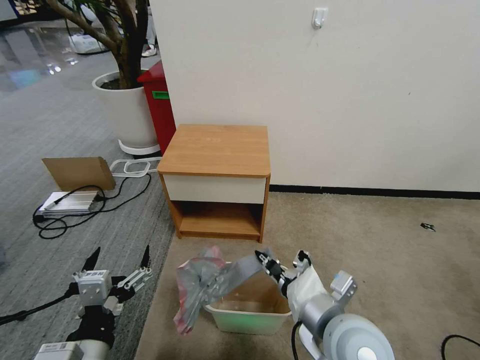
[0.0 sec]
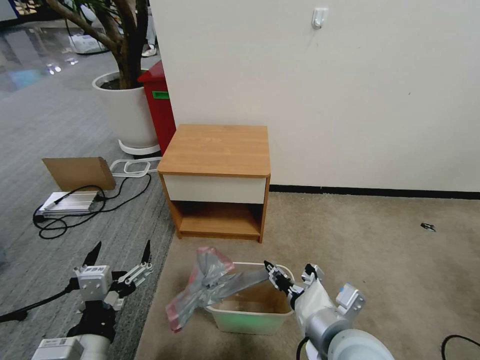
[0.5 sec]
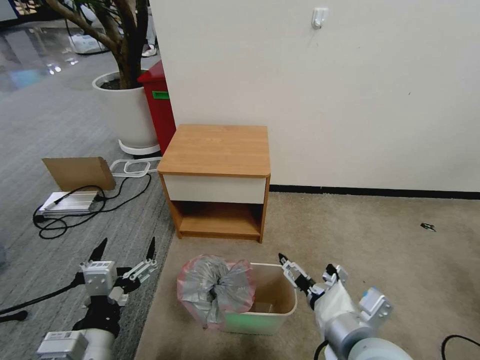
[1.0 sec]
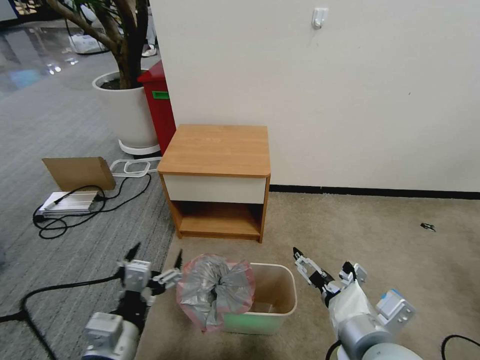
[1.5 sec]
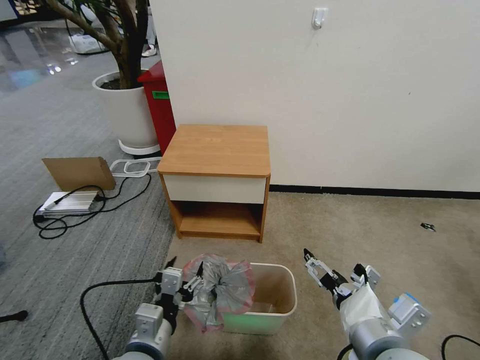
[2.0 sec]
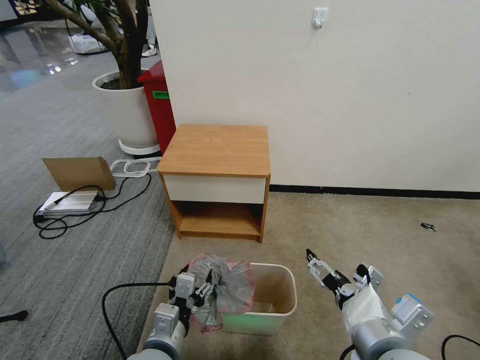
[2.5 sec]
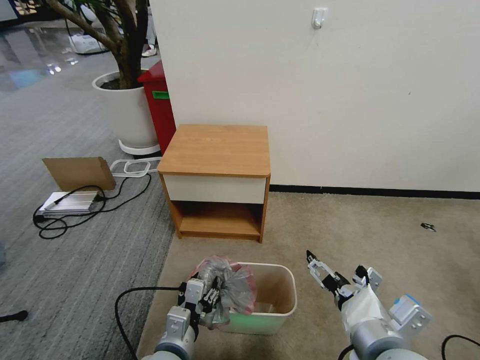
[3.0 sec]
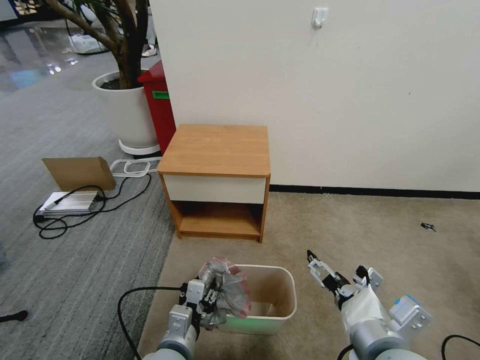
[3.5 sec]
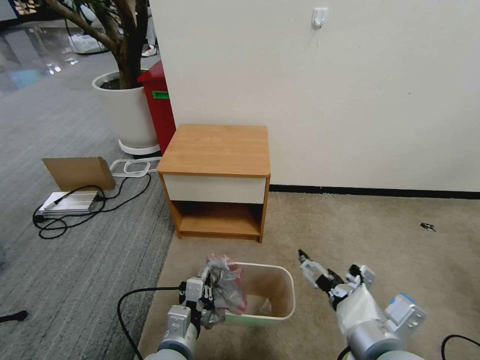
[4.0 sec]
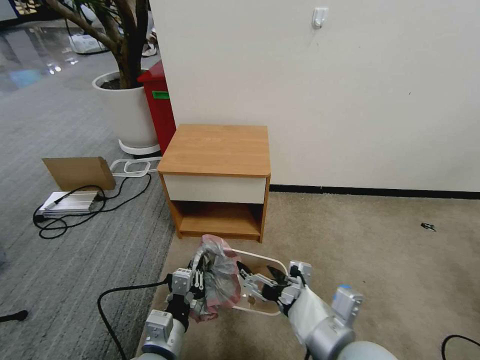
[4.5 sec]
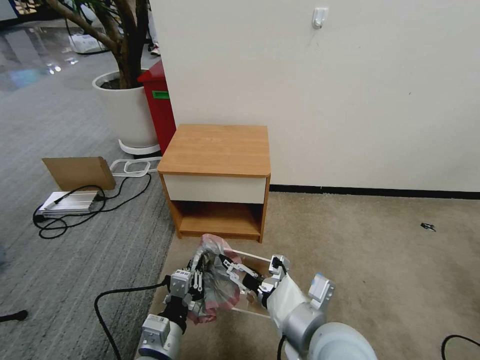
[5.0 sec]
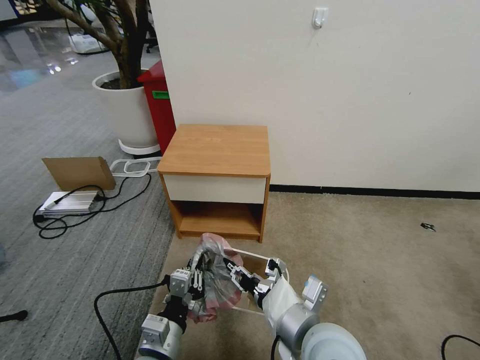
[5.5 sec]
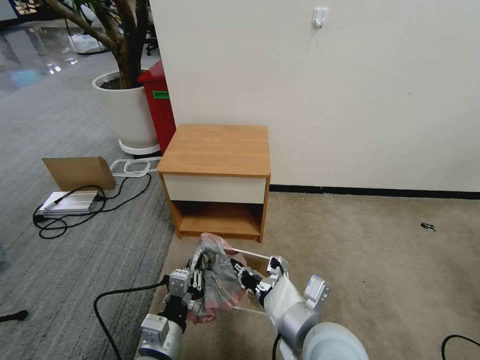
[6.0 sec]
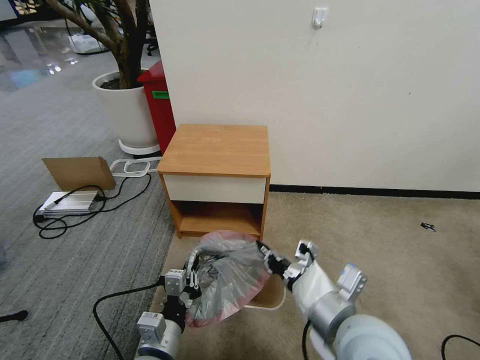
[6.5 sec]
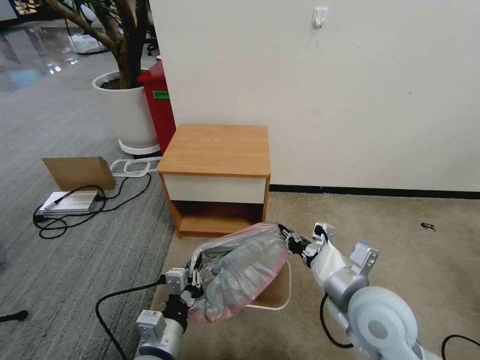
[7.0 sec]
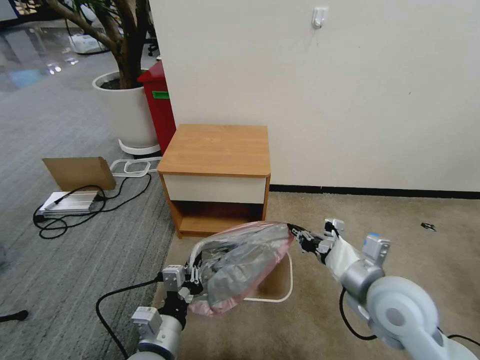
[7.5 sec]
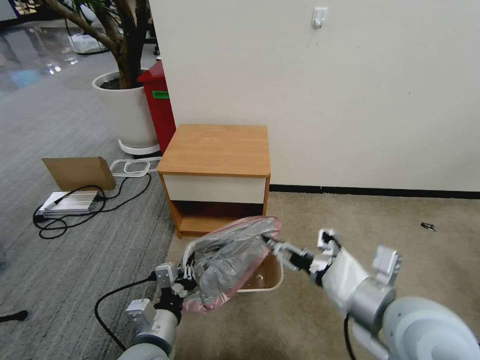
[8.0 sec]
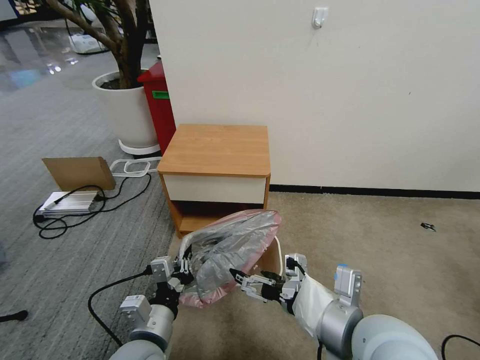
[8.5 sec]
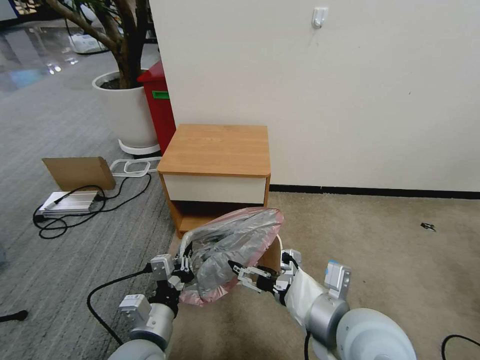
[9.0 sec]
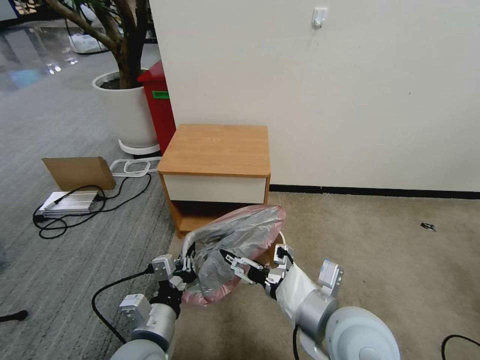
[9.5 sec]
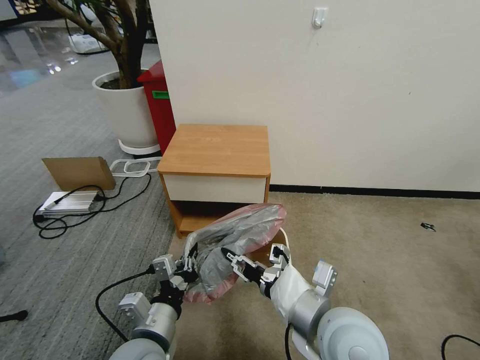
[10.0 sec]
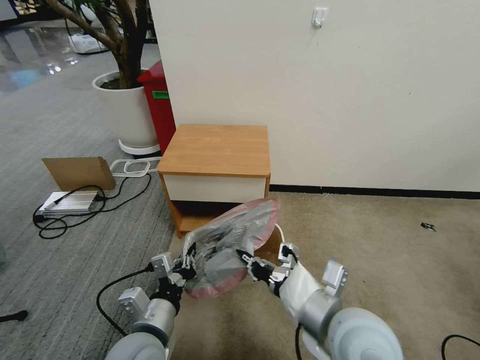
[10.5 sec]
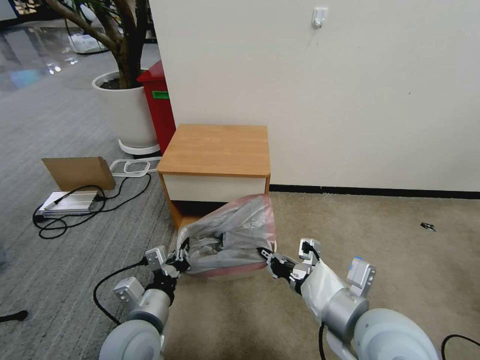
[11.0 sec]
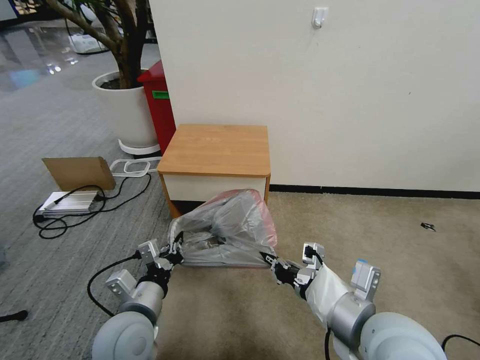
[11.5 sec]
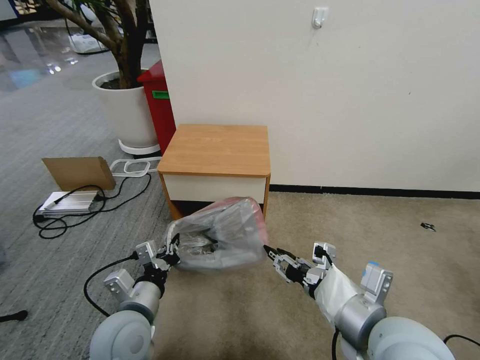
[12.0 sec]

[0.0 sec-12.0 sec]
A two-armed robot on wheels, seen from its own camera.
Task of the whole recording: Pick up the garbage bag from the table and place it over the trash can.
0.0 sec to 2.0 sec: The right gripper ends up approximately 5 cm from where it was, and opens; the left gripper is displaced downward and forward by some 10 cm.
2.0 sec to 4.0 sec: The left gripper moves downward, approximately 5 cm, and closes up.
4.0 sec to 6.0 sec: The right gripper moves to the left, some 10 cm, and closes up.
6.0 sec to 8.0 sec: The right gripper shifts roughly 15 cm to the right and upward, and opens.
8.0 sec to 10.0 sec: The right gripper travels to the left and downward by roughly 10 cm.
10.0 sec to 12.0 sec: The left gripper ends up about 5 cm from where it was. Meanwhile the right gripper shifts some 5 cm to the right, and closes, then opens again.

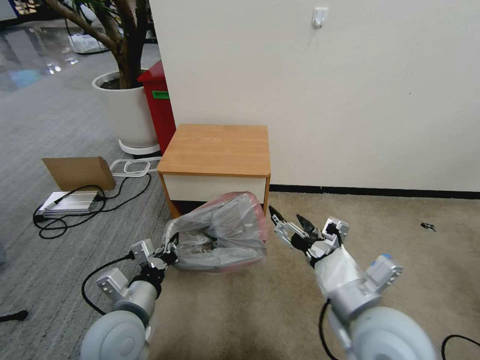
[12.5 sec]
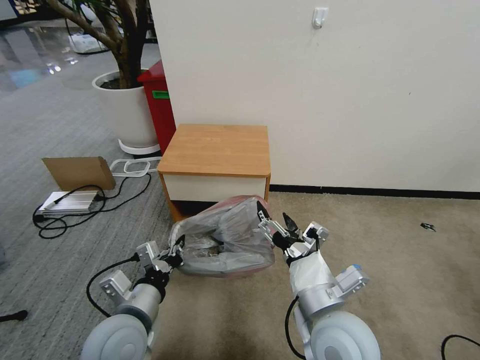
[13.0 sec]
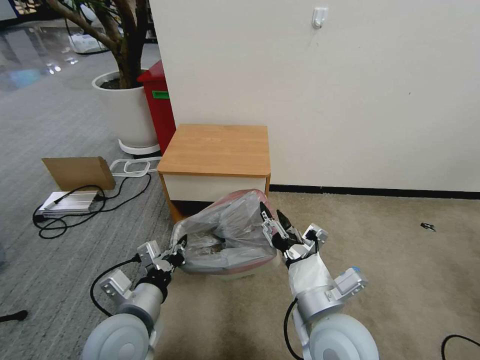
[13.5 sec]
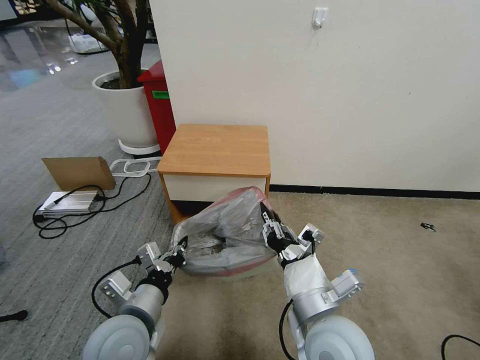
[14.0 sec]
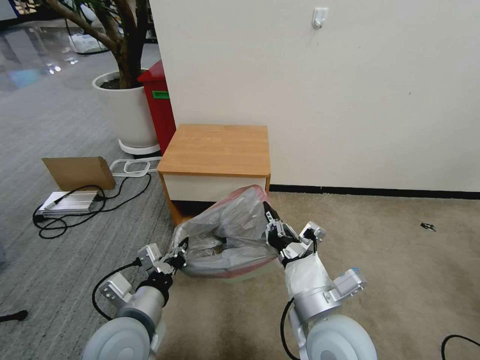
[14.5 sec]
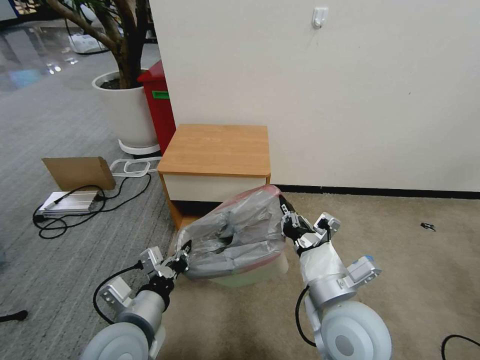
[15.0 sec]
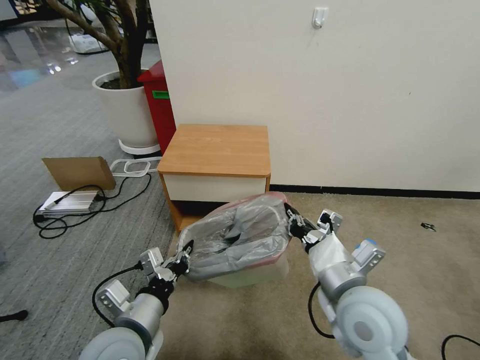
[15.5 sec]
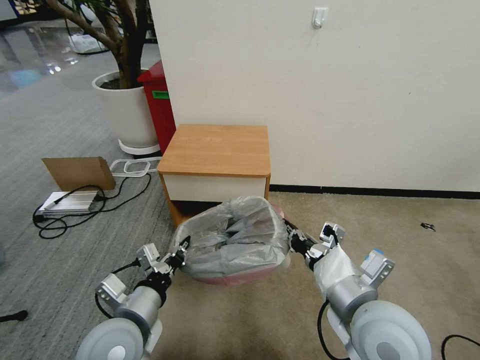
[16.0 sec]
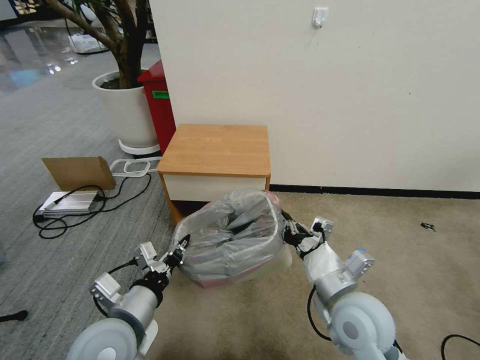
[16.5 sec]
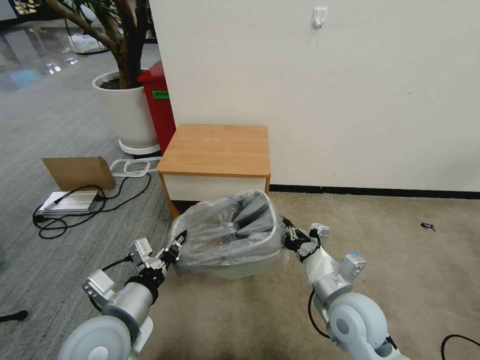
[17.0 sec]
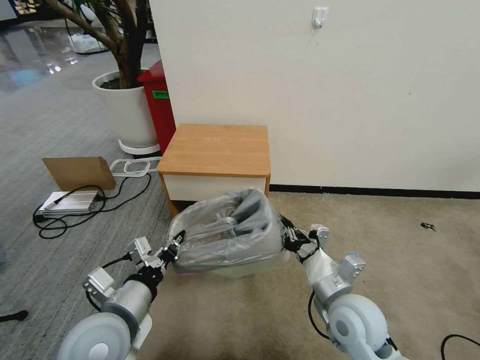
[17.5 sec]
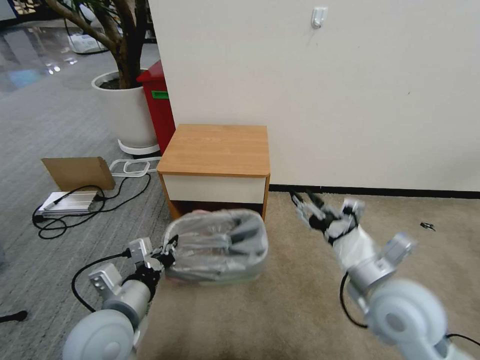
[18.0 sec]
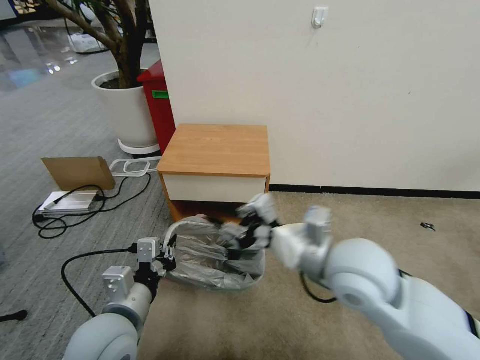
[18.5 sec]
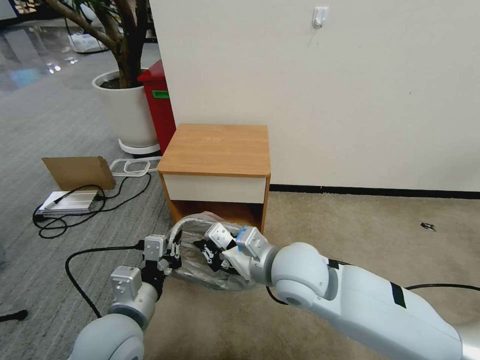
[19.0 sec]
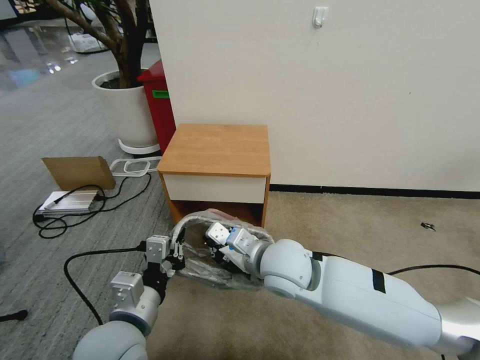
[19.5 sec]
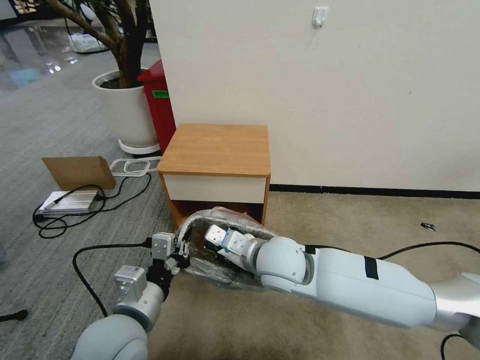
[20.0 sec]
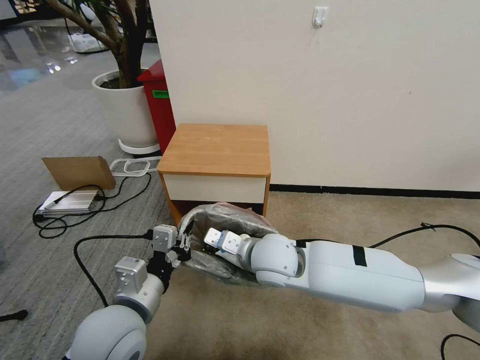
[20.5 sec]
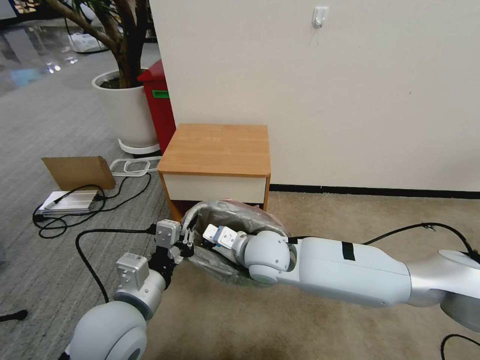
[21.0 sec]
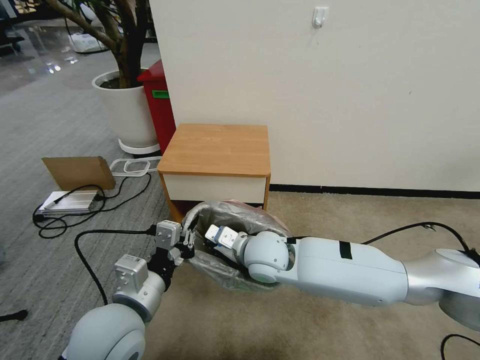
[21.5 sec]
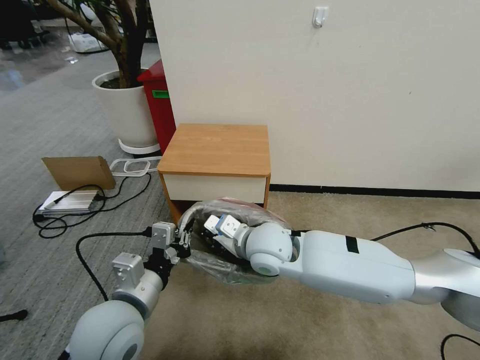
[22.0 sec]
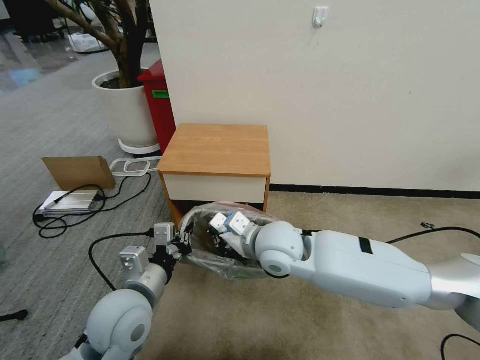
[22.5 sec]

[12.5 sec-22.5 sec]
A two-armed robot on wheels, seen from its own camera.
Task of the whole recording: Pick up the garbage bag from the table and place it over the trash can.
12.5 sec to 14.5 sec: The right gripper goes some 5 cm to the left, and closes its fingers.
14.5 sec to 16.5 sec: The right gripper is displaced to the right by some 5 cm.
16.5 sec to 18.5 sec: The right gripper goes approximately 10 cm upward, and opens up.
18.5 sec to 20.5 sec: The right gripper heads to the left, downward and forward, covering approximately 15 cm, and closes its fingers.
20.5 sec to 22.5 sec: The grippers move only a little.

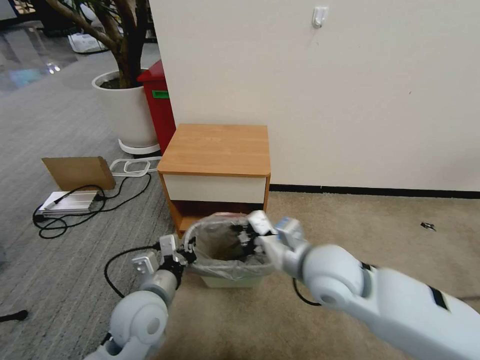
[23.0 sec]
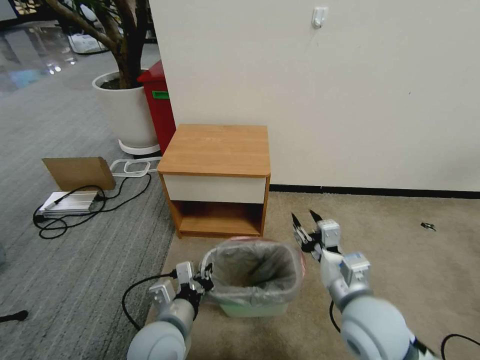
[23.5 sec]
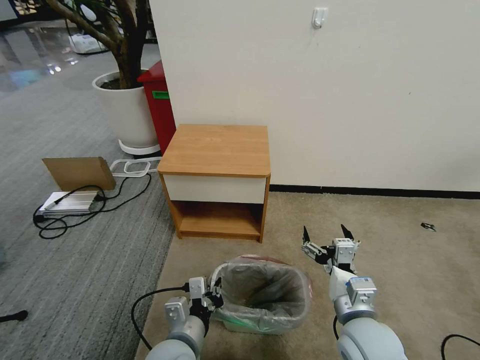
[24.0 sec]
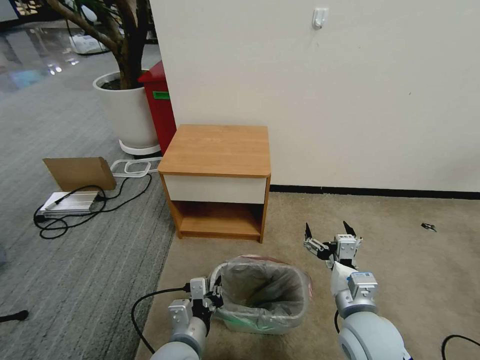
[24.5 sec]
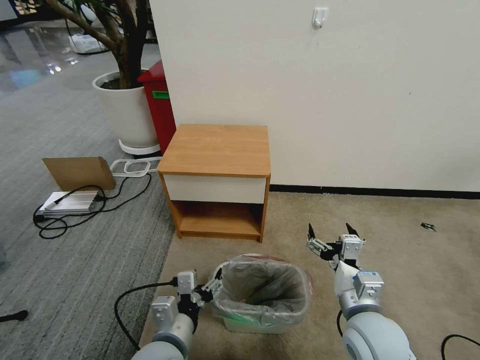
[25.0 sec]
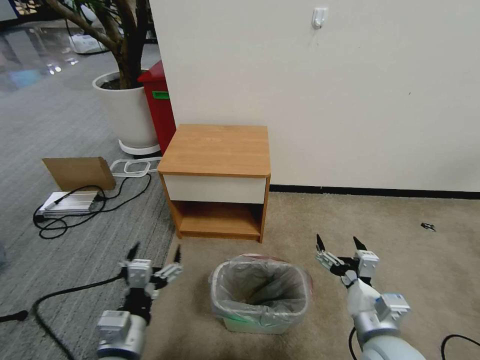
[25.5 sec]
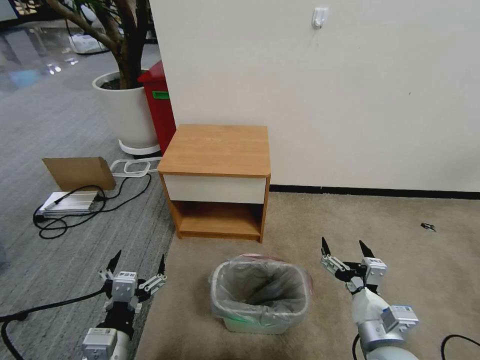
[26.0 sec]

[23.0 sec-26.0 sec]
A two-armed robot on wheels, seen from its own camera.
Task of the whole recording: Pick up the garbage bag from the table and place it over the trash can.
23.0 sec to 24.5 sec: The left gripper heads backward, downward and to the right, covering approximately 10 cm; the right gripper heads downward, backward and to the right, covering approximately 15 cm, and opens.
24.5 sec to 26.0 sec: The left gripper goes roughly 15 cm to the left, upward and backward, and opens. The right gripper heads backward, covering about 5 cm.
